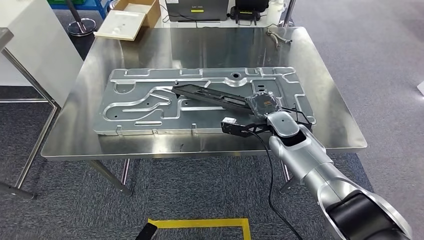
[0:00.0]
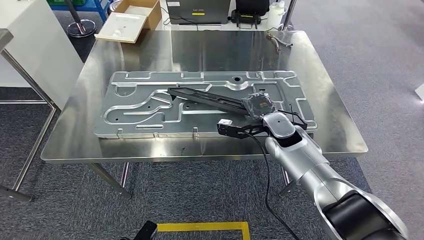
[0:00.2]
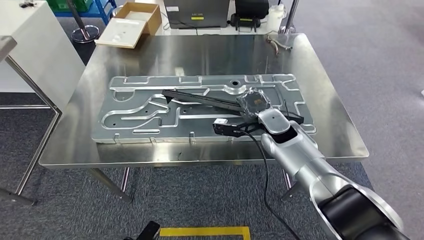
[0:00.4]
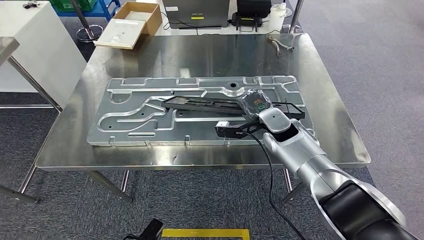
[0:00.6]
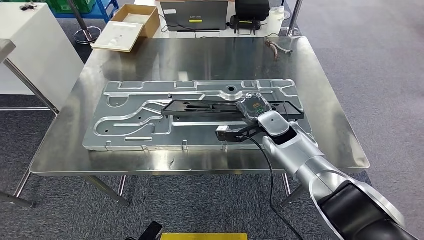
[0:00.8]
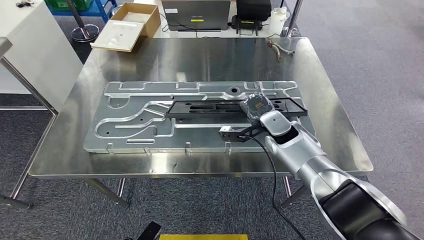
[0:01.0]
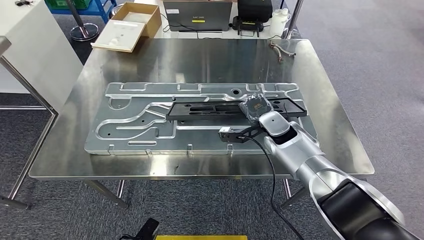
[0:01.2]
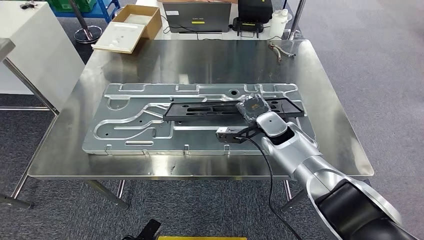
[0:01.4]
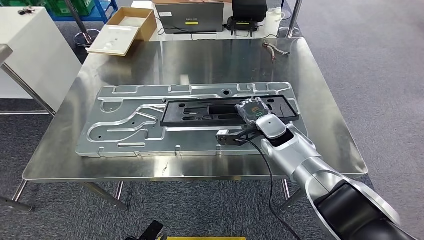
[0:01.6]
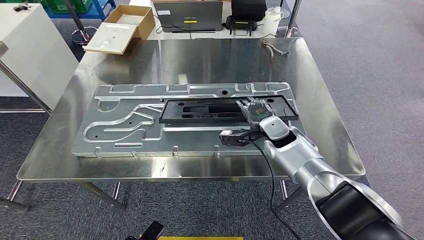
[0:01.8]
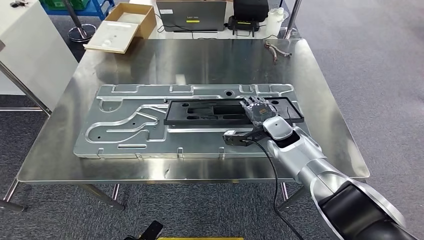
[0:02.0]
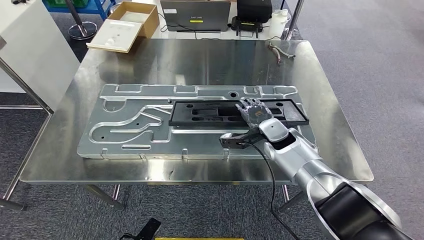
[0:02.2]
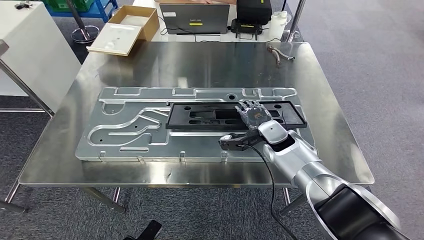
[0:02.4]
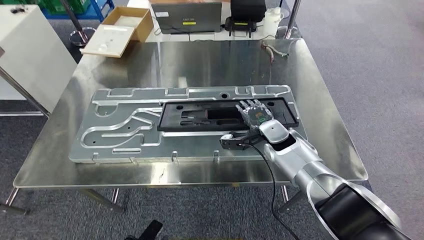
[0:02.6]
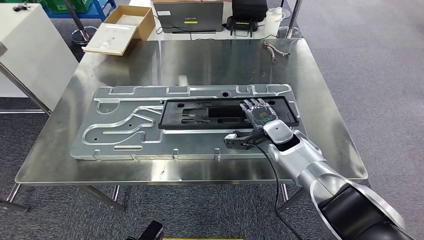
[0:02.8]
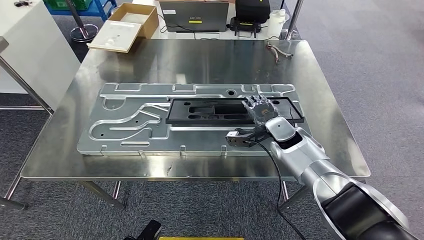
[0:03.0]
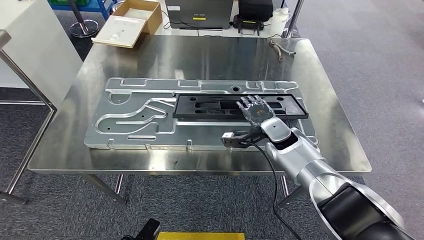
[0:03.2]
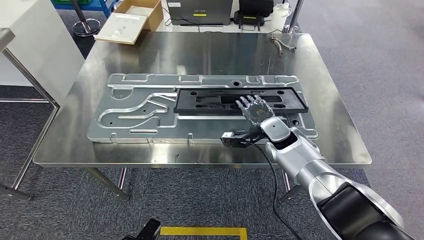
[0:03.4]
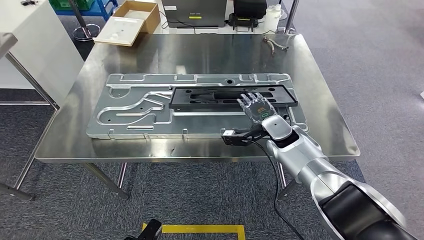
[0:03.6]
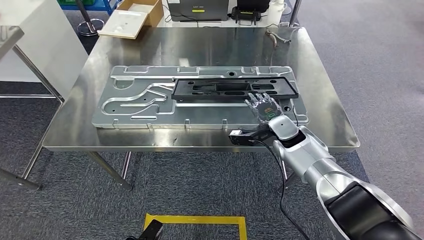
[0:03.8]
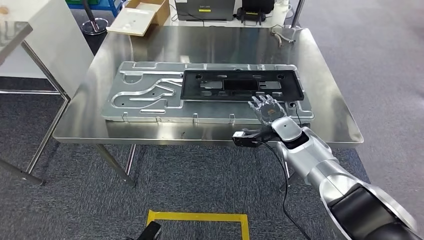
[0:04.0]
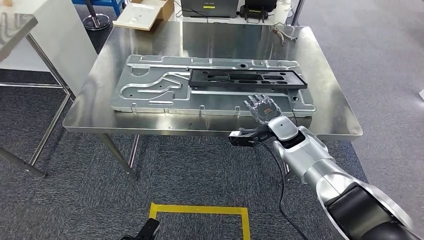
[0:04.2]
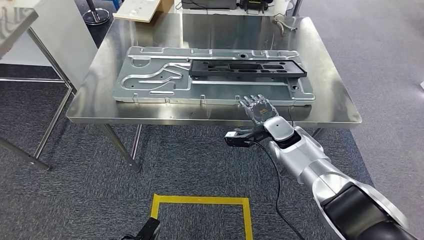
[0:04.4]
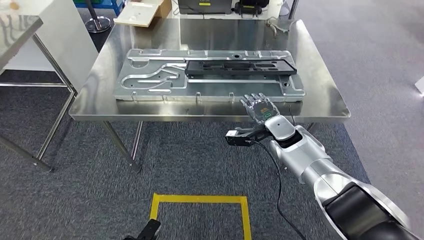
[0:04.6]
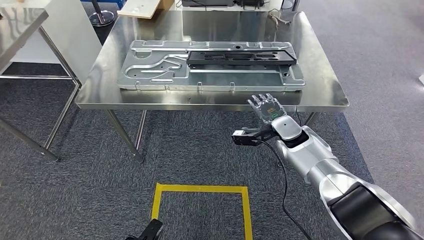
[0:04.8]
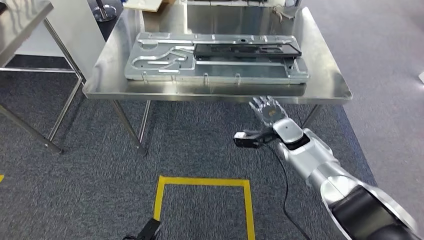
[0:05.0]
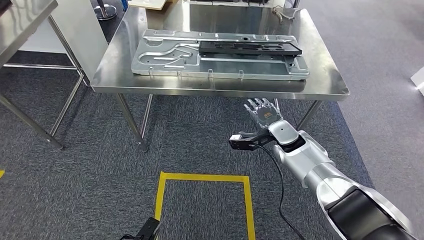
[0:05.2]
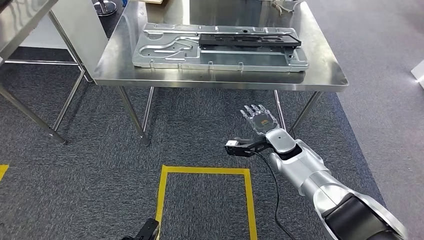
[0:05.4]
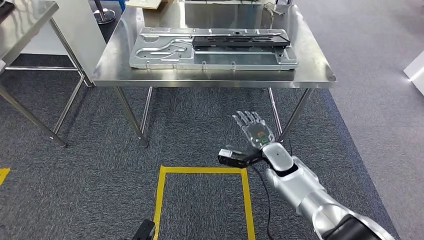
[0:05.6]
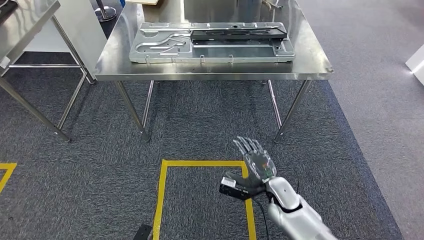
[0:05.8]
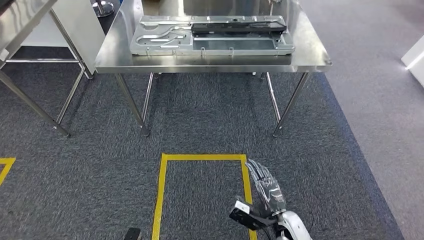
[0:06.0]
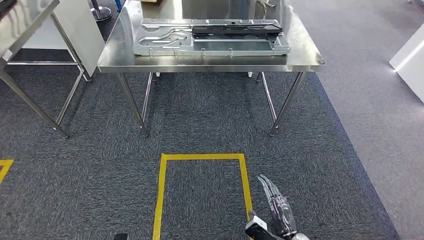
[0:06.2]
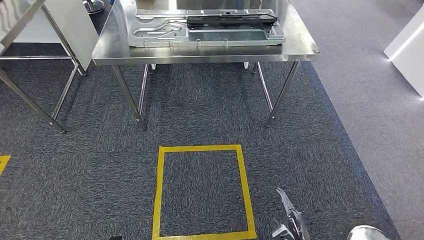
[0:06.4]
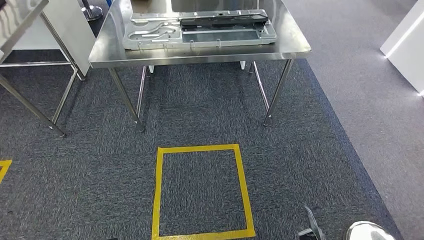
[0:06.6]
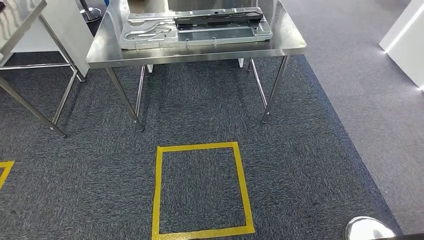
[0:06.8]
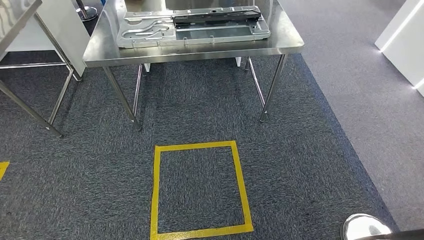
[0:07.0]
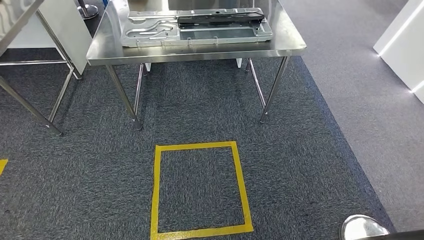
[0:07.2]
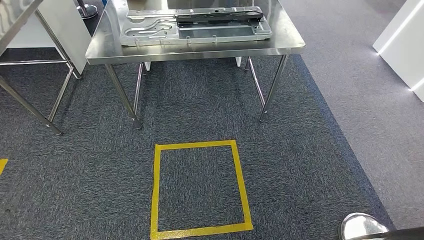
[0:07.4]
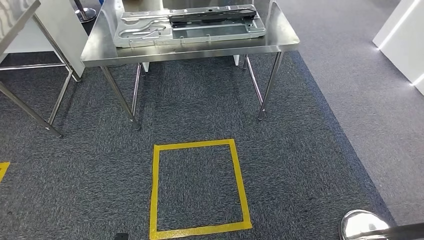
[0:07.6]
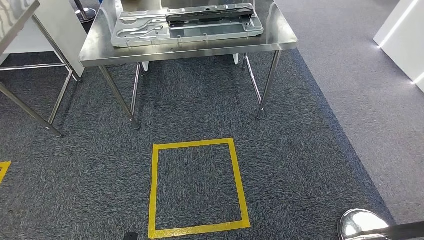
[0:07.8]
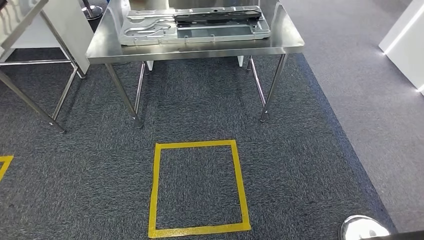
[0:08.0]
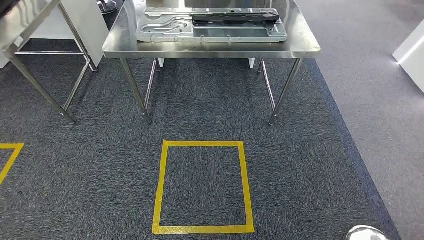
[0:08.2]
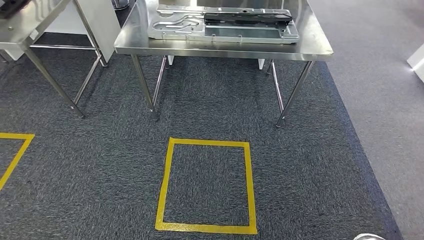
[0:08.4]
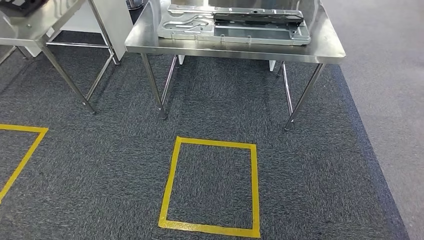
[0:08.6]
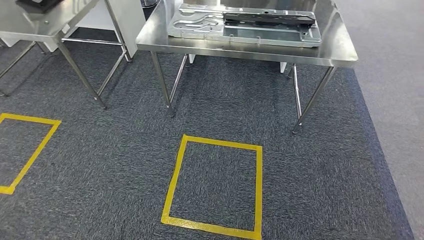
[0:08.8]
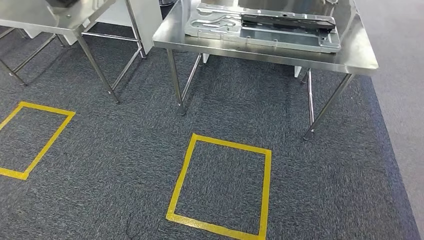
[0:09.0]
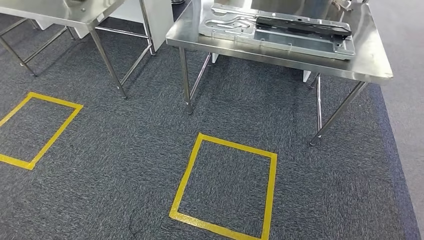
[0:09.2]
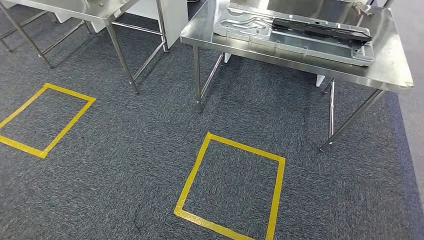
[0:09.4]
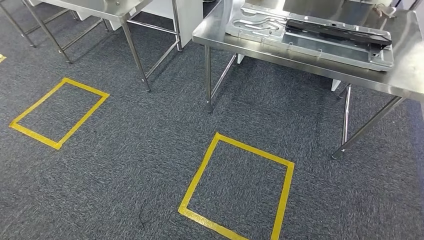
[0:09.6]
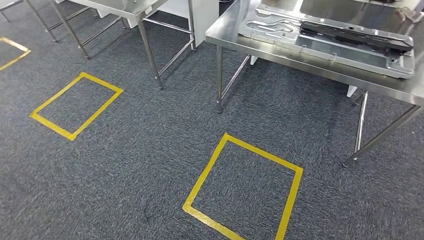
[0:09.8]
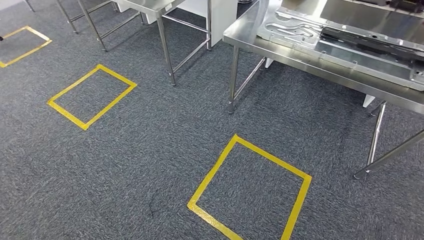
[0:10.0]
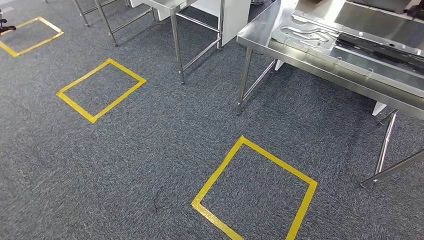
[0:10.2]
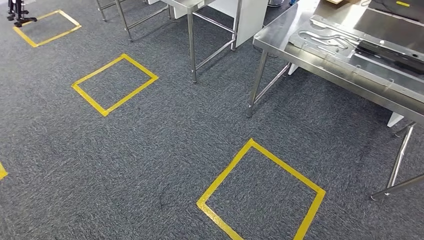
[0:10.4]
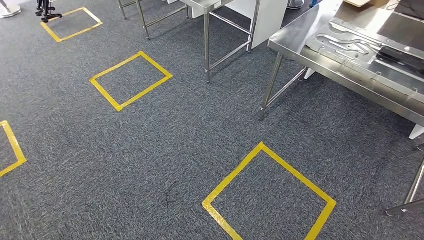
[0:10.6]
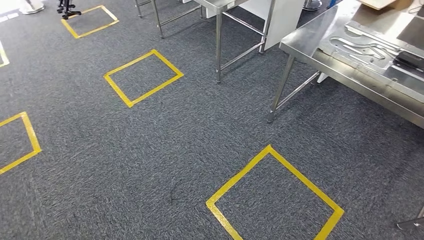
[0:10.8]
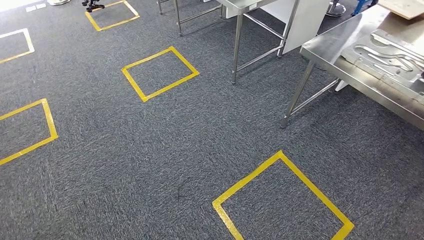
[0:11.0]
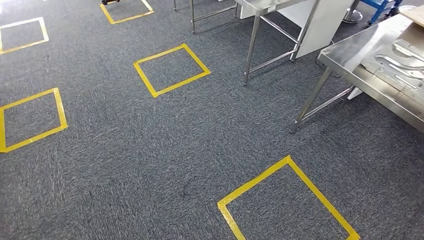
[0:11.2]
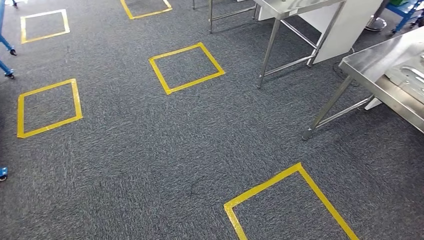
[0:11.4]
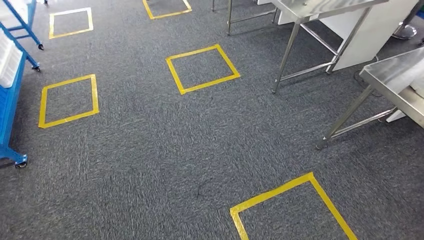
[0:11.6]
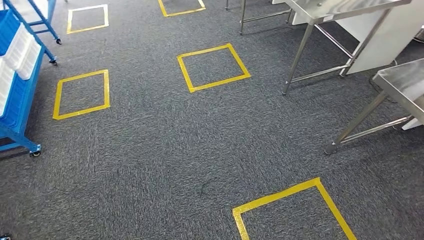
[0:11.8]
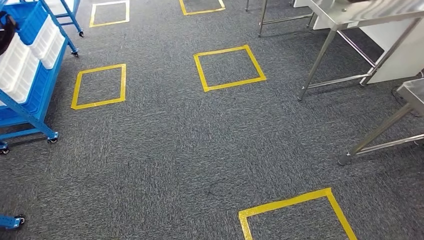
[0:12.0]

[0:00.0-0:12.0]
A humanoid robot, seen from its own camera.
Step, 0:00.0 to 0:06.4: Insert the large material into the corresponding slot on the workbench.

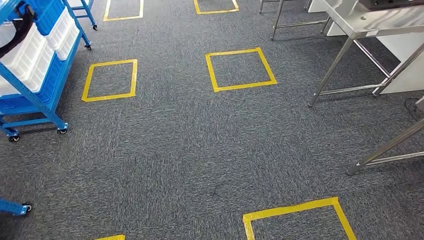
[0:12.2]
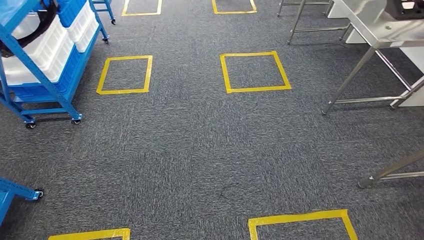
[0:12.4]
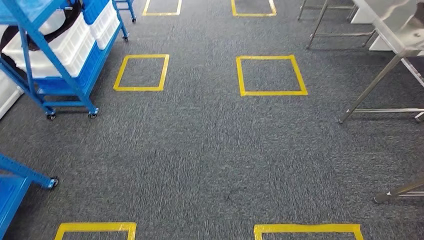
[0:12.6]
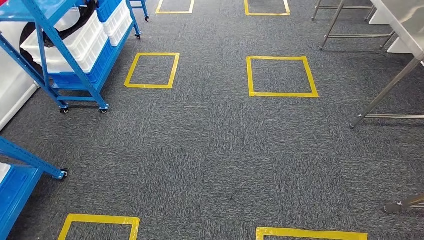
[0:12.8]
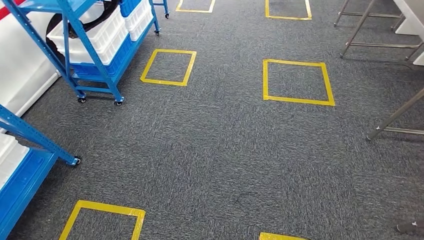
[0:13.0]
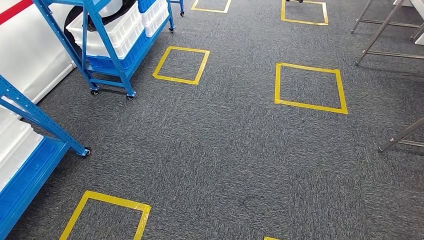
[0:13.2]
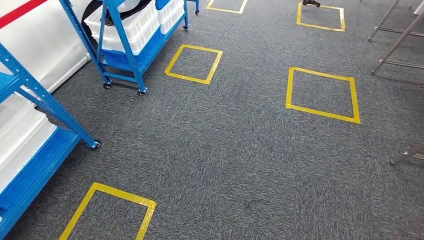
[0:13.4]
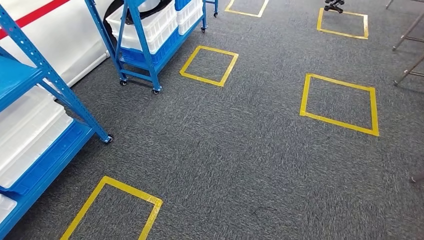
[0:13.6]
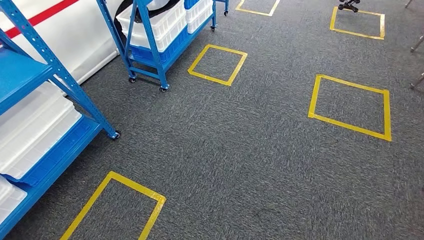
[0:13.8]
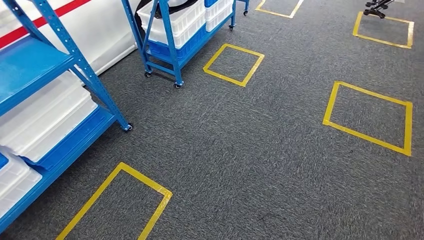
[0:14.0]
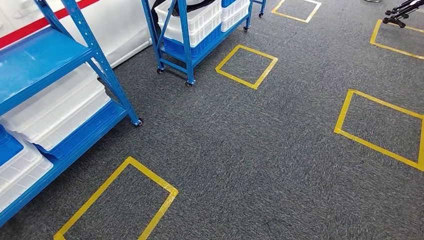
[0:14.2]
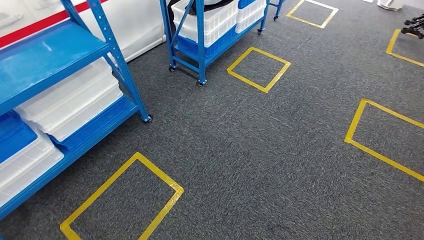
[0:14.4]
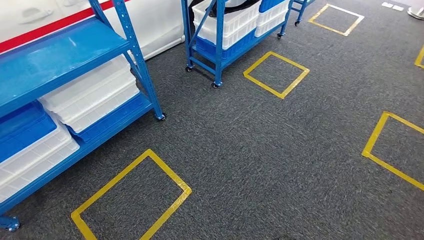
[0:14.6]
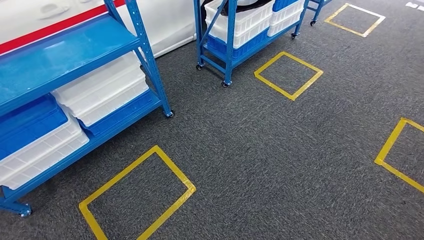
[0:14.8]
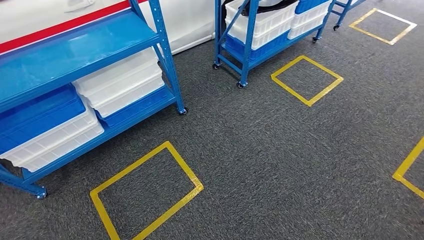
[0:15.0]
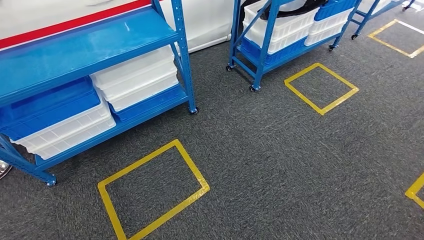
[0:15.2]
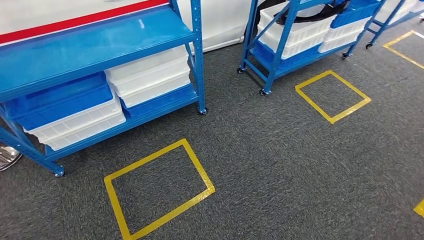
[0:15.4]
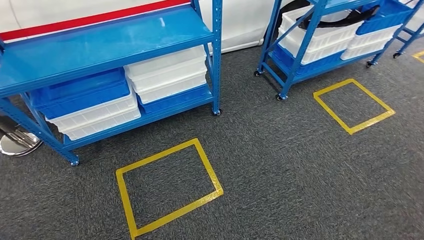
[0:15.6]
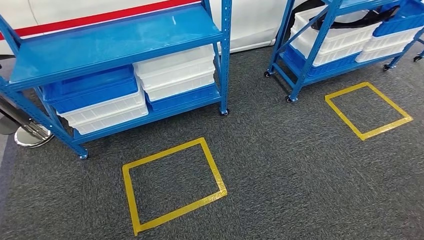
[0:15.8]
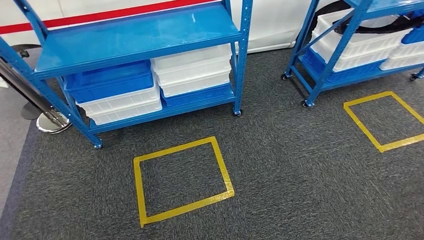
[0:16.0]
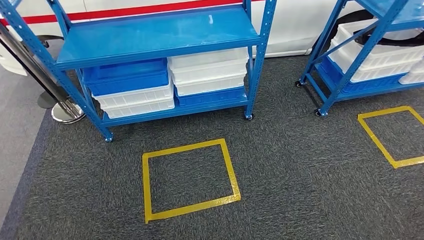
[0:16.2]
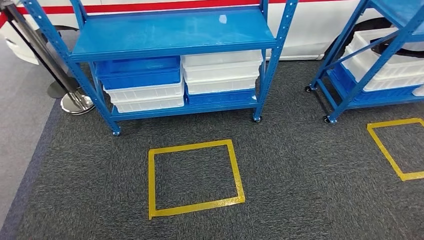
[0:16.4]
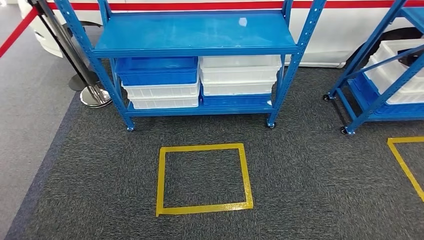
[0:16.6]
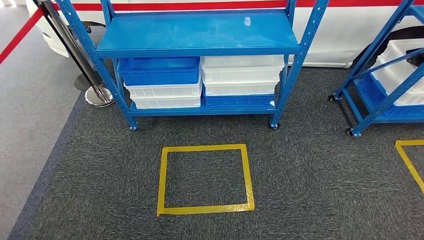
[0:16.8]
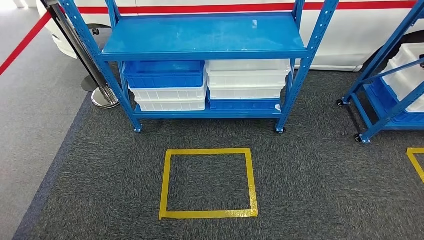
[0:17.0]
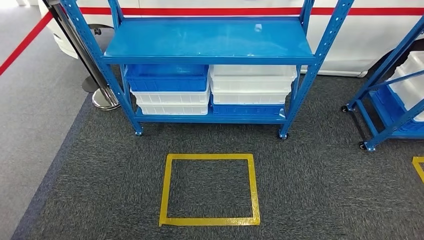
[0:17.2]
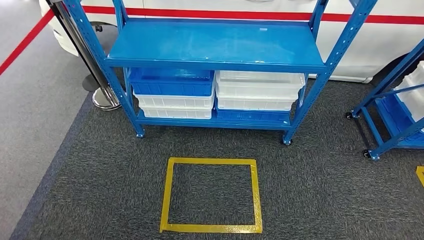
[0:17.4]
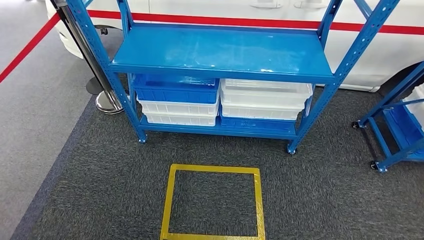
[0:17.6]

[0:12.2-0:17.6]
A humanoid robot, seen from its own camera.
Step, 0:12.2 to 0:17.4: Move to the initial position of the shelf.
